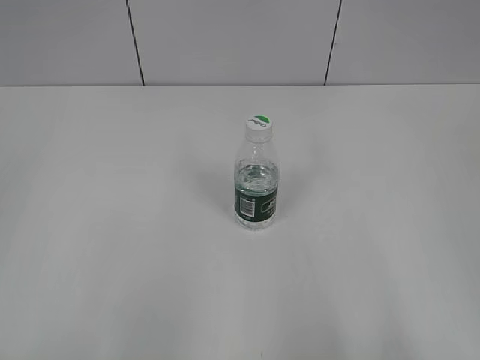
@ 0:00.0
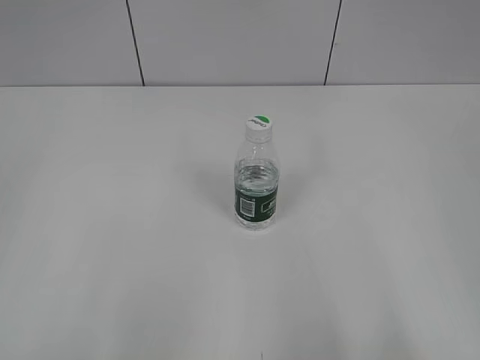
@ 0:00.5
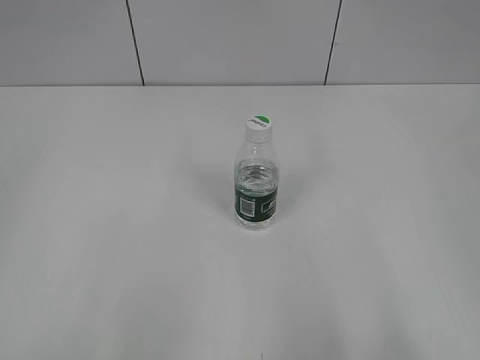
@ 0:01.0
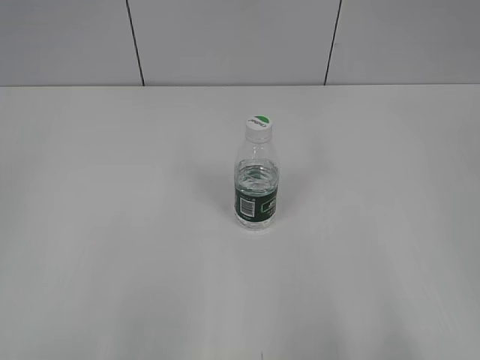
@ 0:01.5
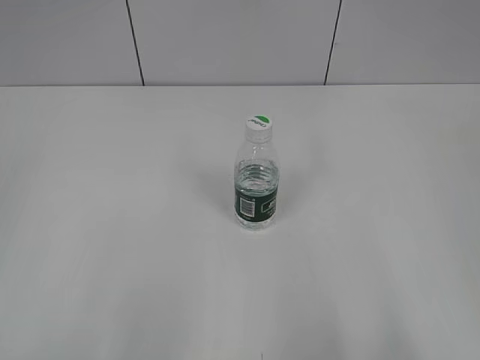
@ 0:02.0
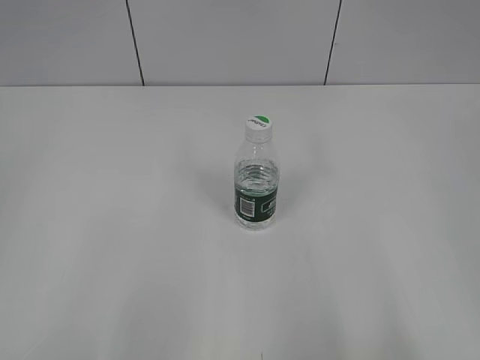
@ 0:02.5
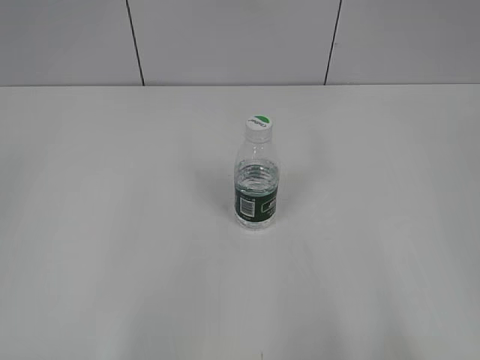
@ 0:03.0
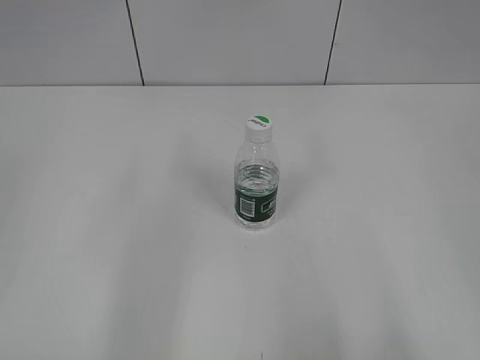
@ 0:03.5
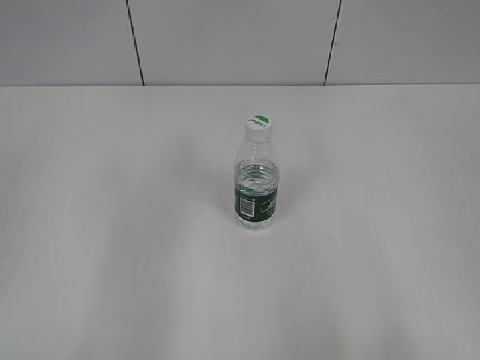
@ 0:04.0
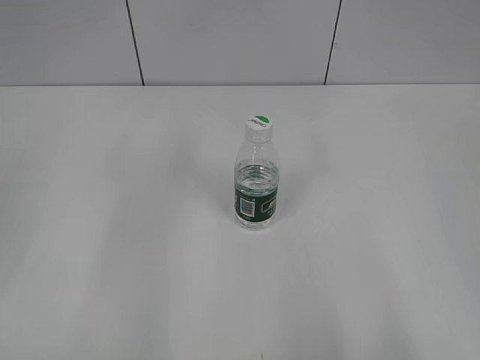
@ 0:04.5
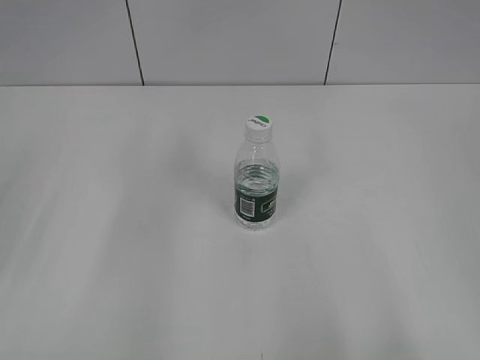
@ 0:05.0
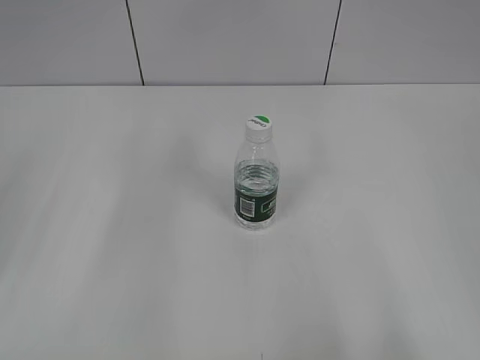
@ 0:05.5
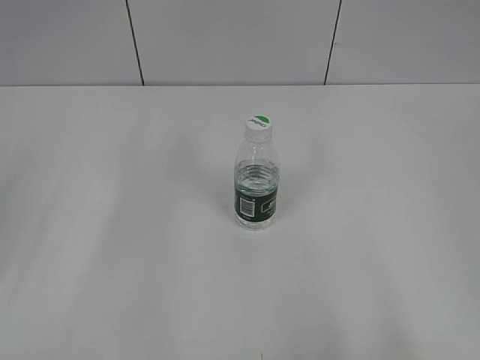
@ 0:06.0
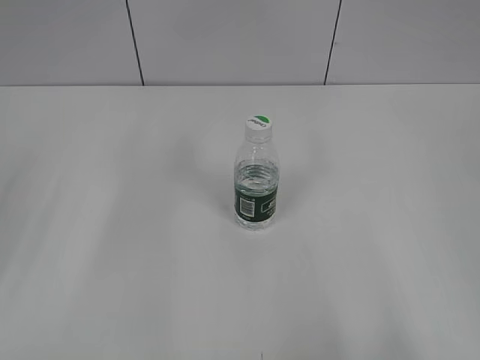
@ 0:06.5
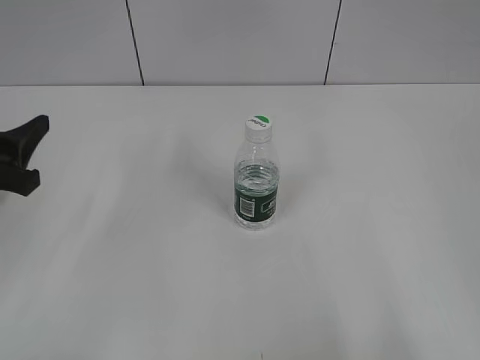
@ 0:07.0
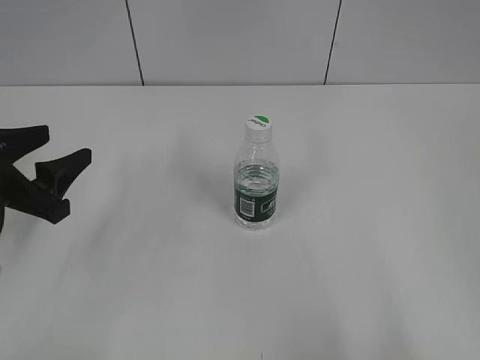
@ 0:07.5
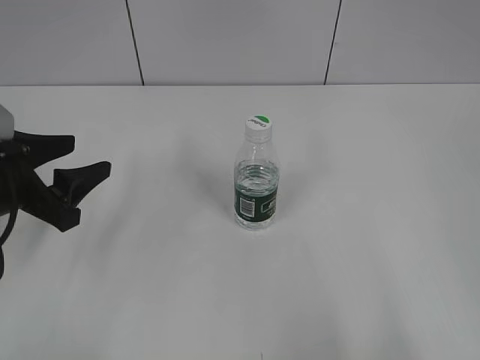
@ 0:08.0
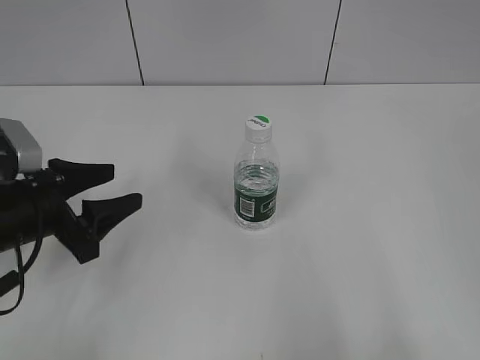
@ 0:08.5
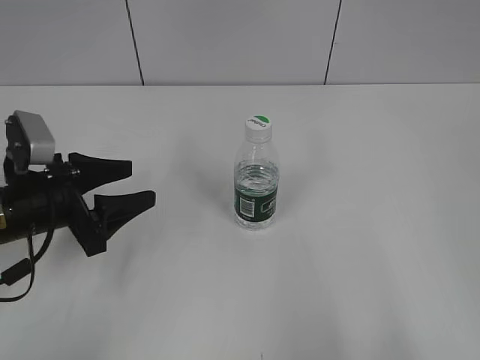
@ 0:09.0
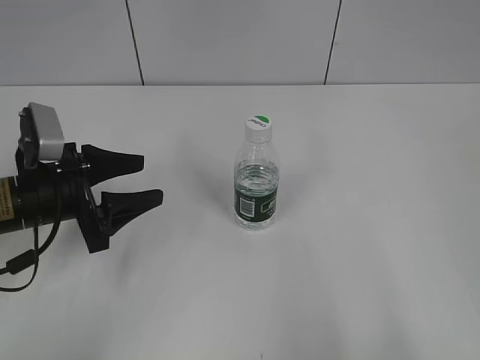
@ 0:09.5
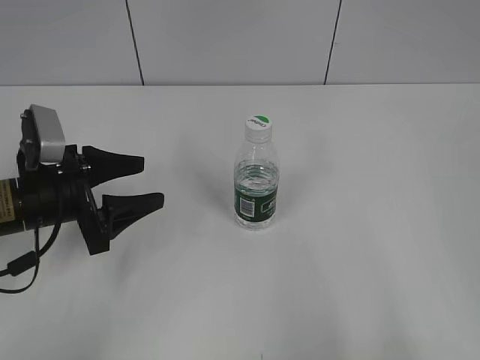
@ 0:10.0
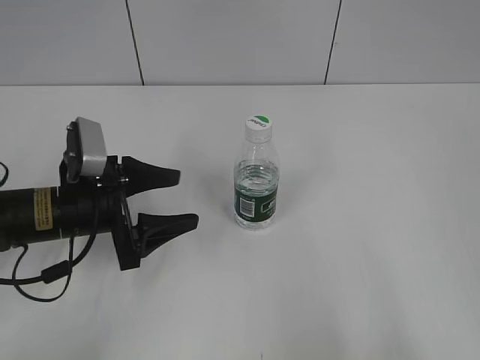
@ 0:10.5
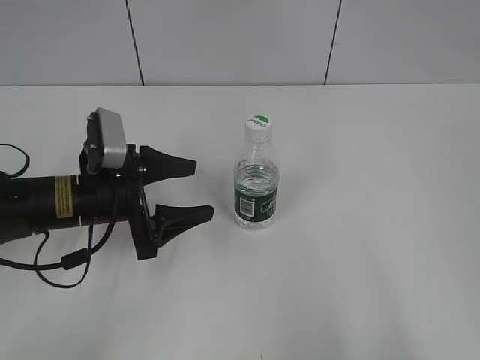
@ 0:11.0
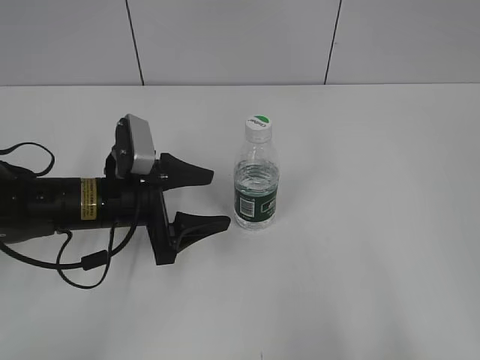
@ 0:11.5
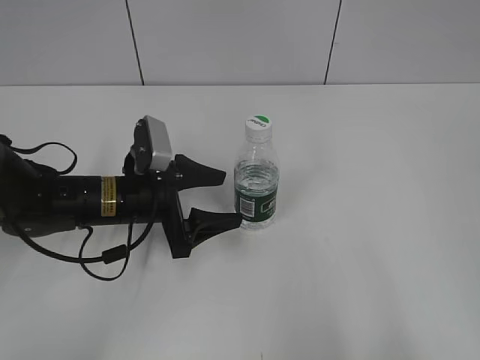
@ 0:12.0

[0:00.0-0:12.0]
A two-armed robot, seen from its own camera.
0:06.0 to 0:08.0: The left gripper goes approximately 5 cm downward.
0:08.0 to 0:10.0: The left gripper changes place by approximately 5 cm.
0:10.0 to 0:12.0: The left gripper moves to the right, about 10 cm.

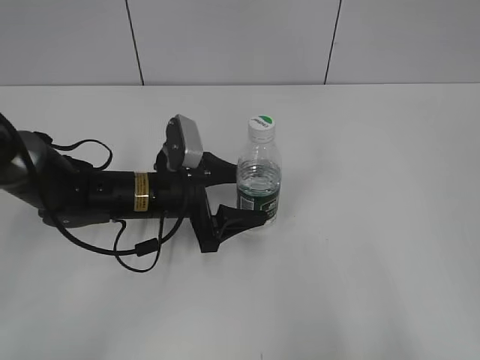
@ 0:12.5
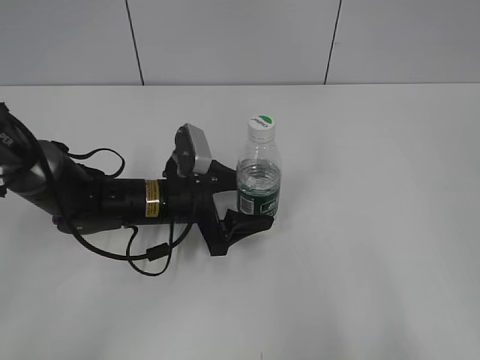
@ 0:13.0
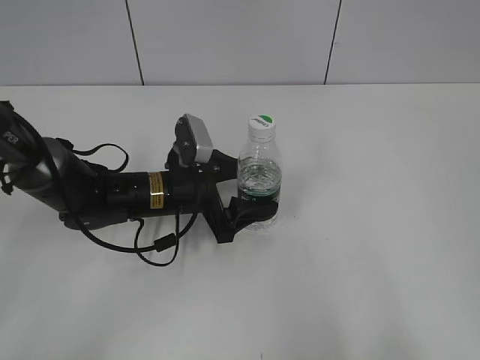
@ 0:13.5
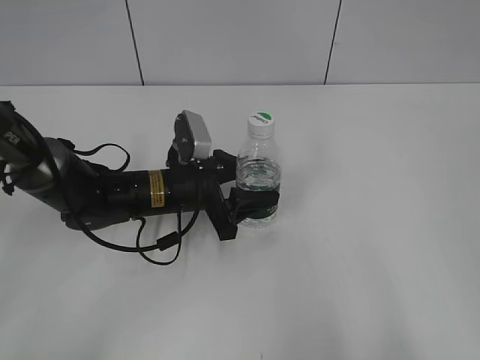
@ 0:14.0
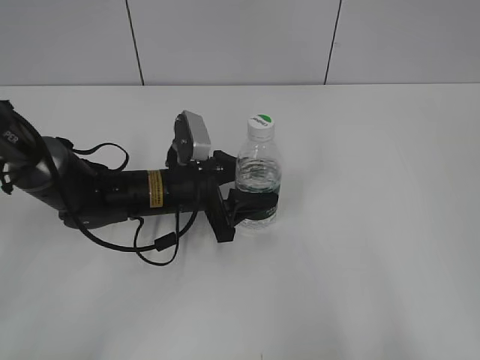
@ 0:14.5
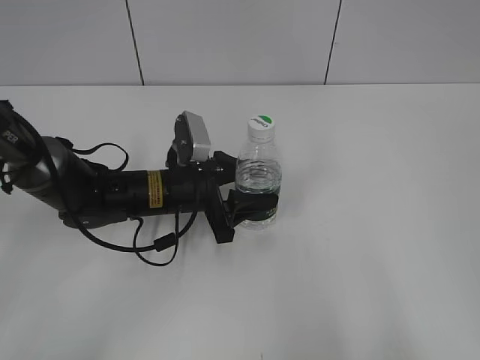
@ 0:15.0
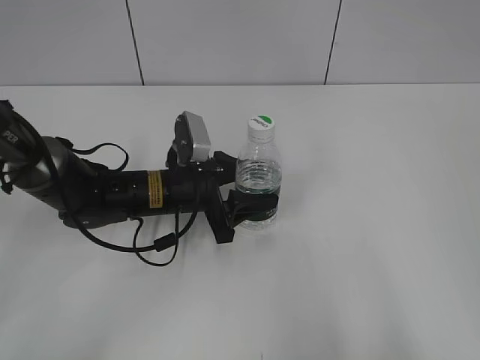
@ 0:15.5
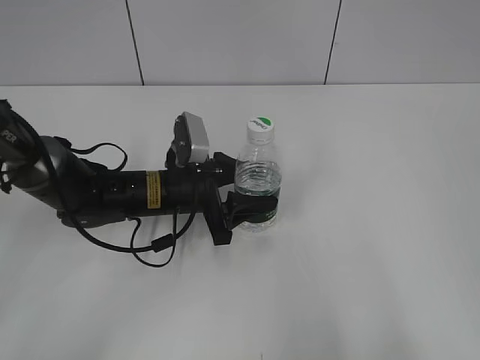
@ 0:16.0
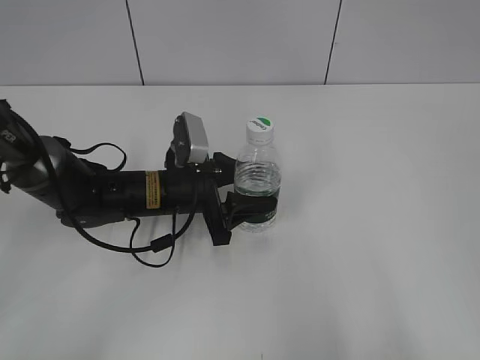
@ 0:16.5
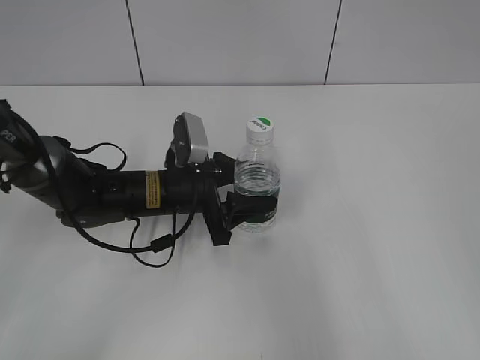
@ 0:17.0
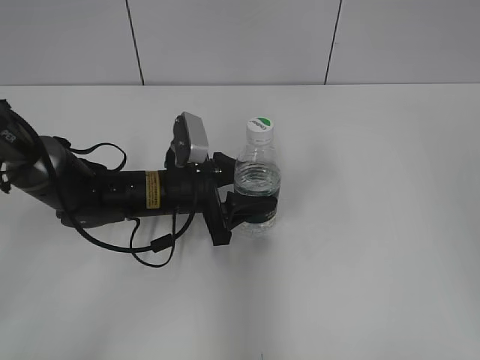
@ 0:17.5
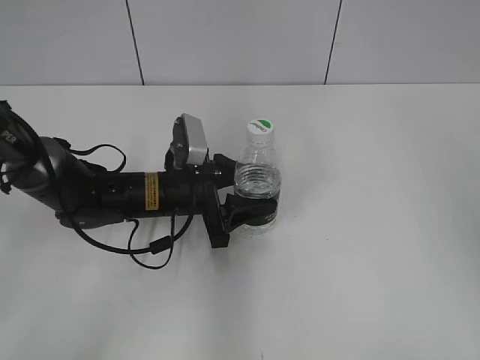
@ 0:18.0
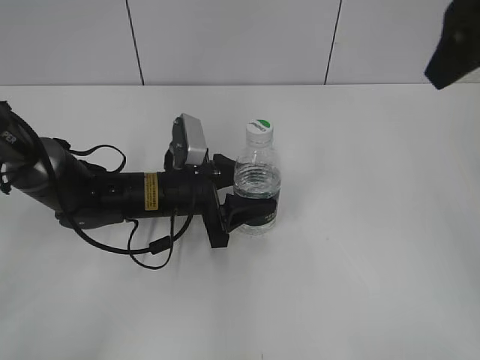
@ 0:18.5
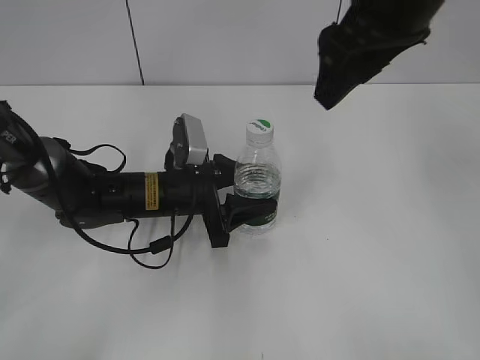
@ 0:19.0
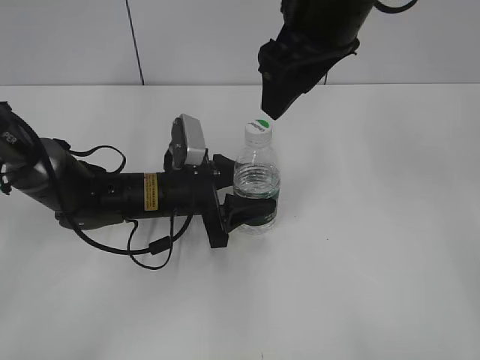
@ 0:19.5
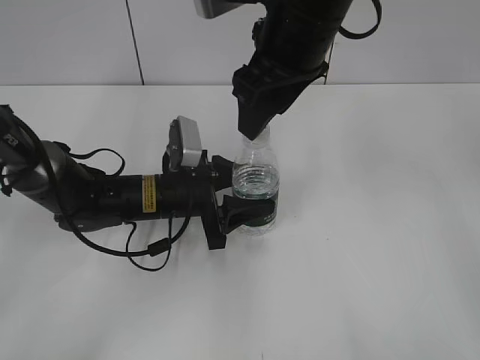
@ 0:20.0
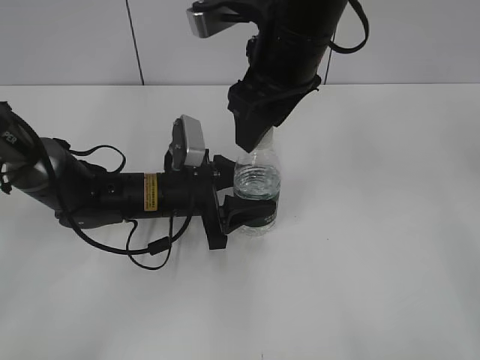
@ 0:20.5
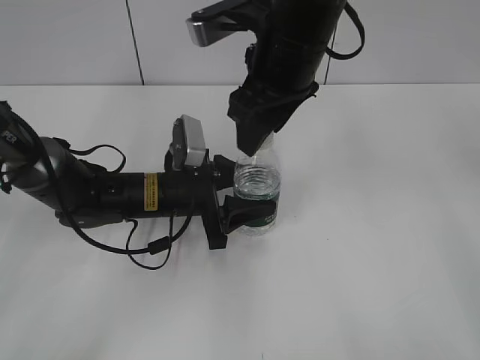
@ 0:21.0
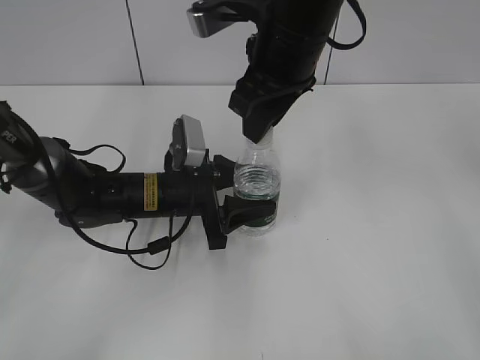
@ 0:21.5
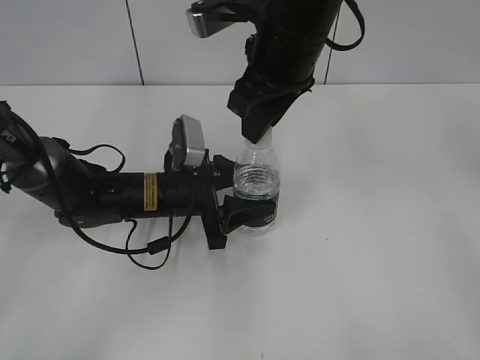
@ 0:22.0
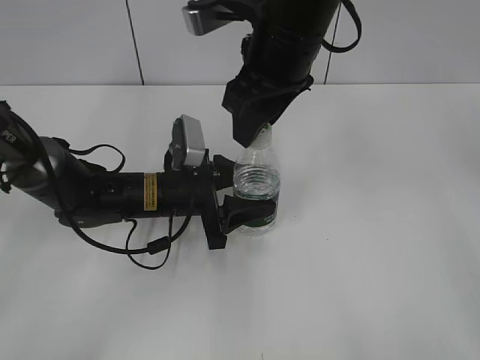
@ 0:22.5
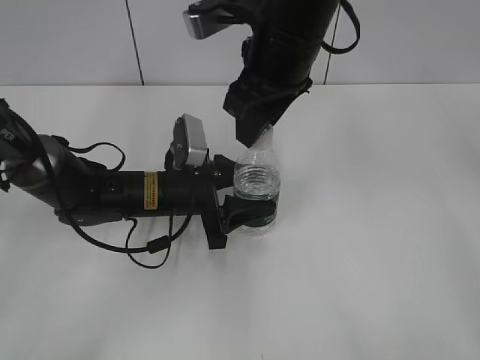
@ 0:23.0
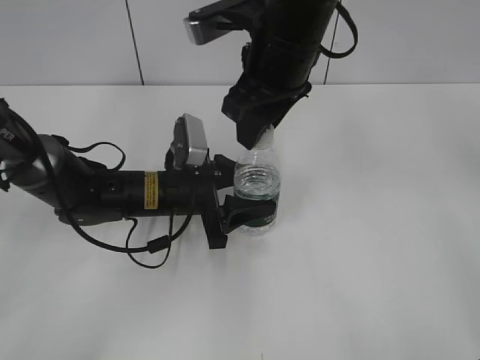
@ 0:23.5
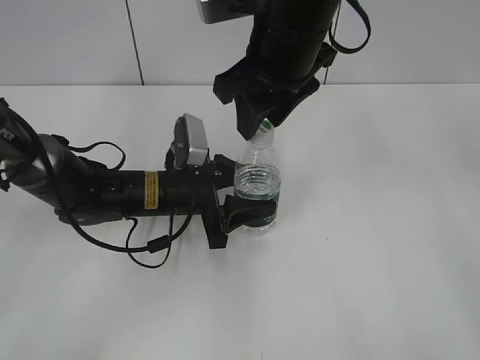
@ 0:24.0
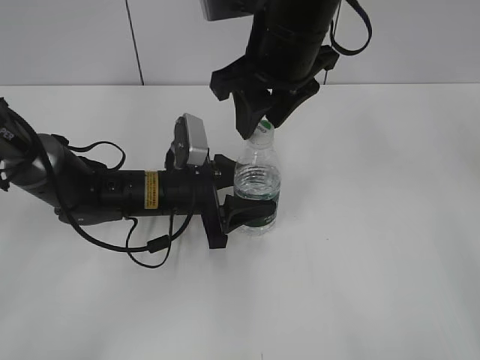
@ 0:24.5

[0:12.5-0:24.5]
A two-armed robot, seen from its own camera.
Step, 0:12.5 to 0:17.5: Grasp the bottle and move it to the center of the table with the left gripper.
0:12.5 to 0:14.5: The left gripper closes its fingers.
0:14.5 to 0:16.5: Both grippers stay about where they are.
0:16.5 to 0:18.5: The right gripper shifts approximately 30 cm forward.
0:18.5 to 0:20.5: The right gripper moves to the left and downward, approximately 20 cm.
0:20.5 to 0:22.5: The right gripper closes, then reopens.
0:22.5 to 0:24.5: The grippers make only small movements.

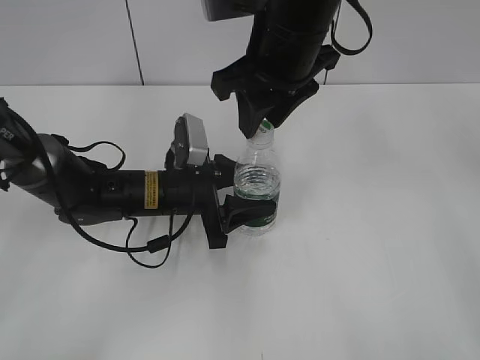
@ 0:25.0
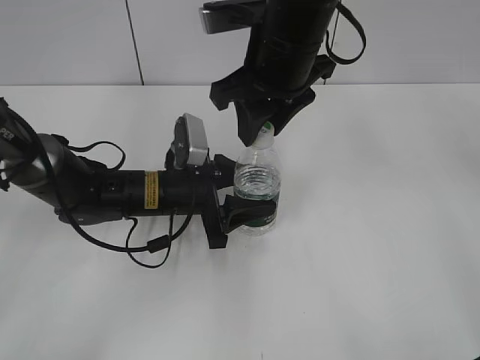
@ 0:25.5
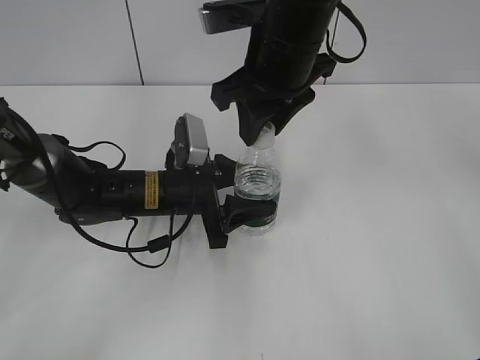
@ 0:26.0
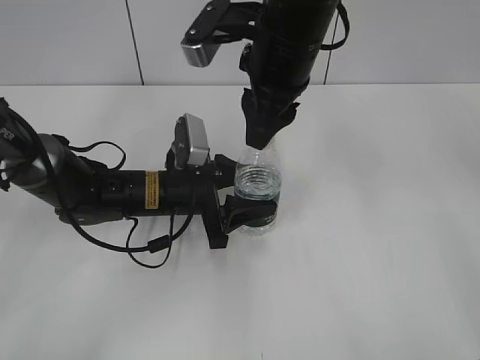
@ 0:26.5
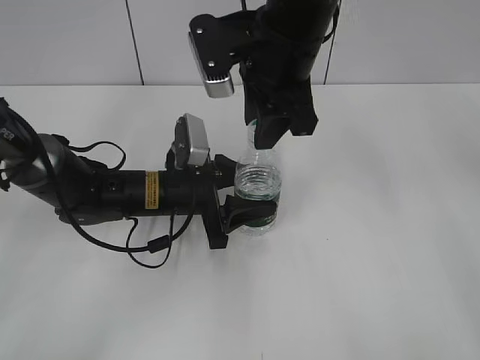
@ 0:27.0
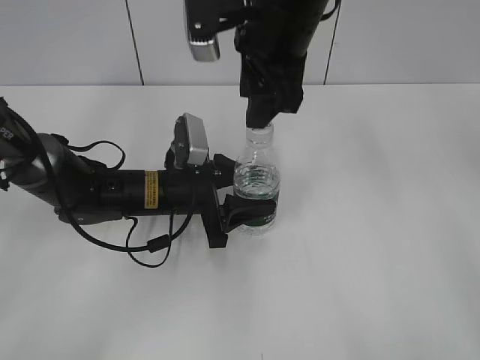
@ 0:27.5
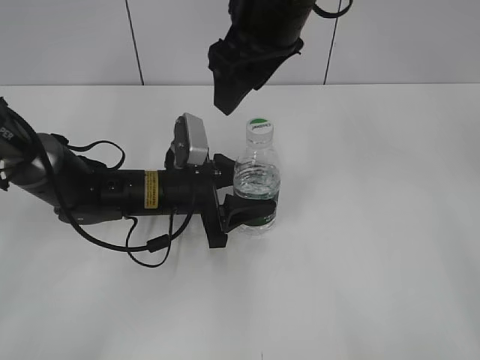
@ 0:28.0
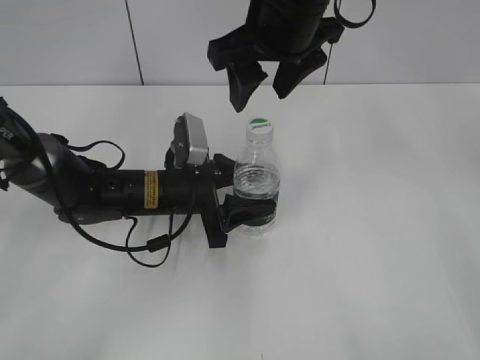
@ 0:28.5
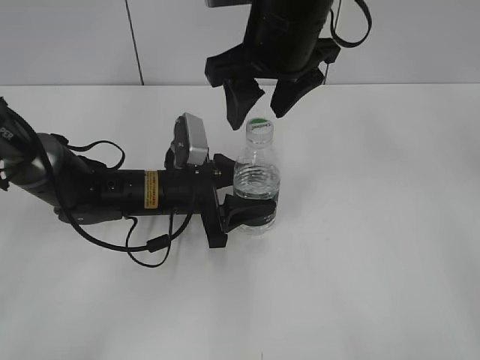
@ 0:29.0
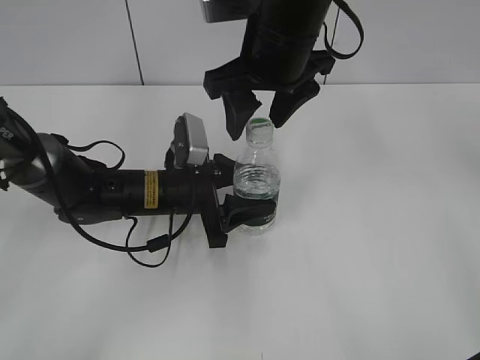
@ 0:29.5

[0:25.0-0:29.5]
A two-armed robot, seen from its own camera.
0:27.0 to 0:29.5: The right gripper opens.
